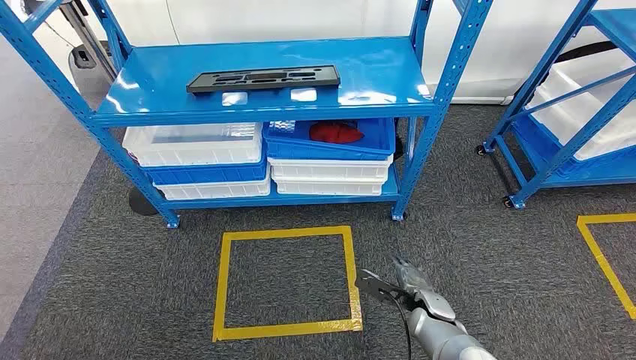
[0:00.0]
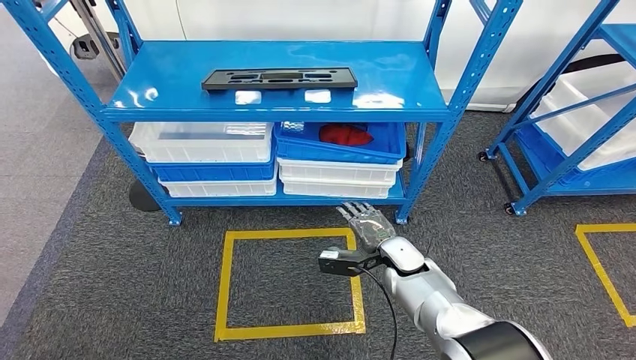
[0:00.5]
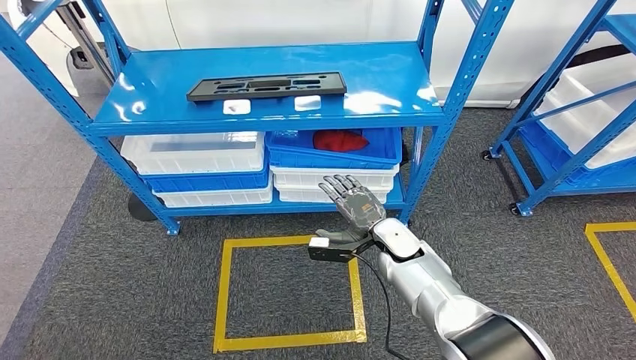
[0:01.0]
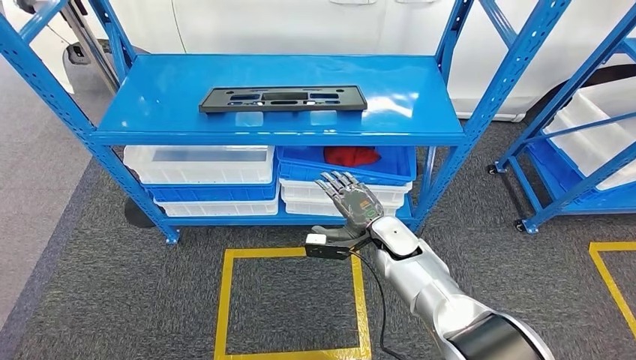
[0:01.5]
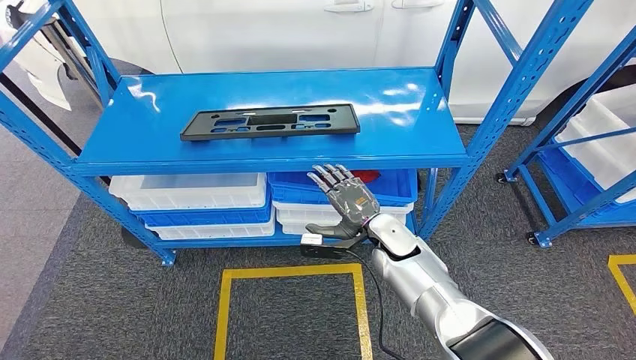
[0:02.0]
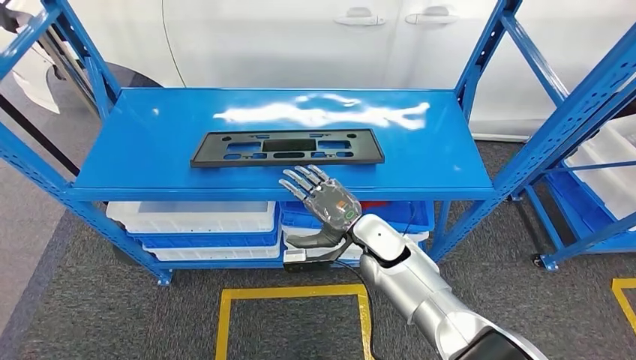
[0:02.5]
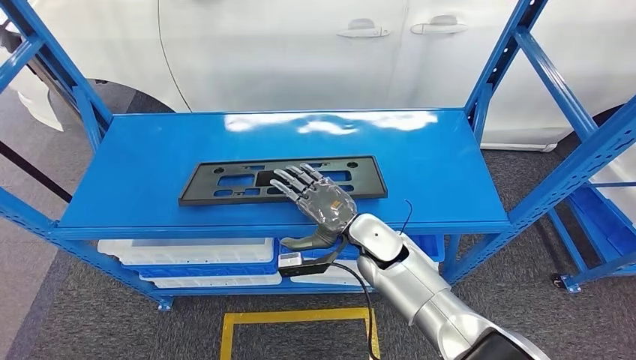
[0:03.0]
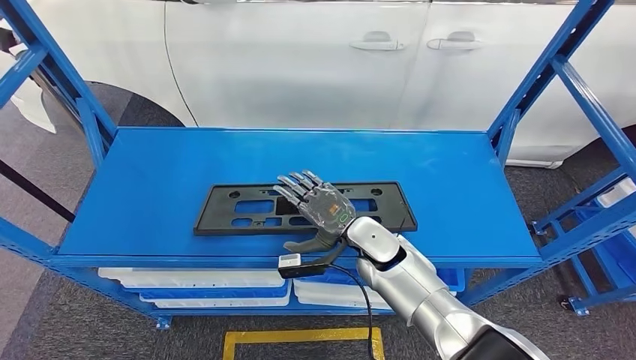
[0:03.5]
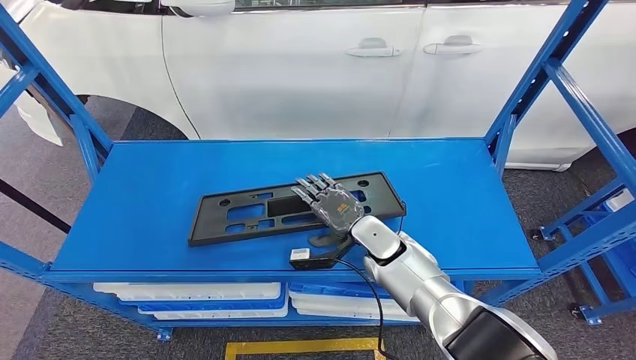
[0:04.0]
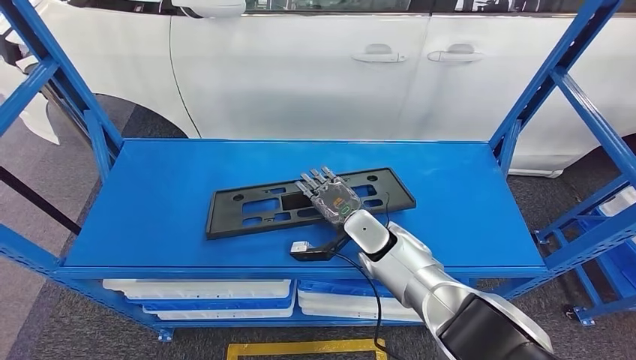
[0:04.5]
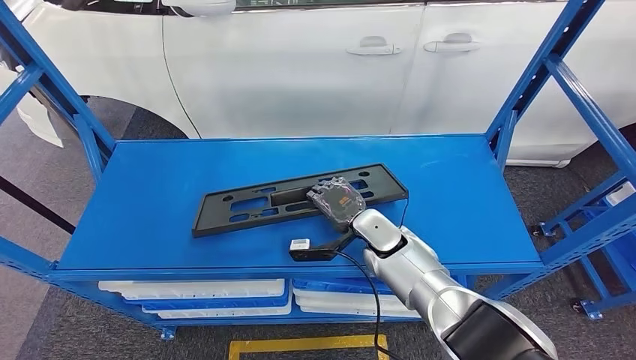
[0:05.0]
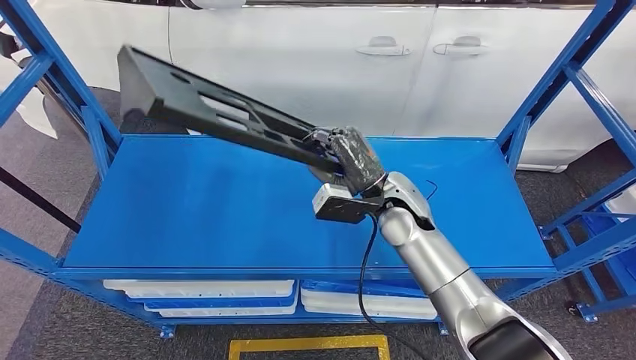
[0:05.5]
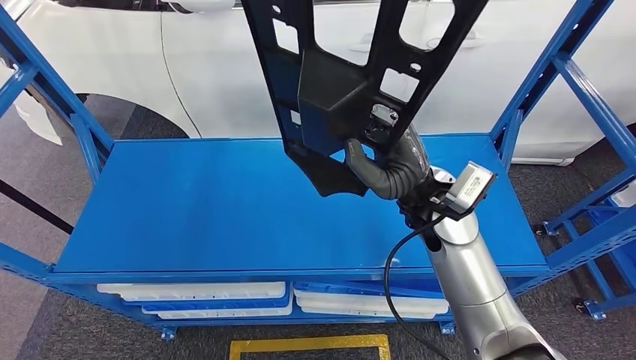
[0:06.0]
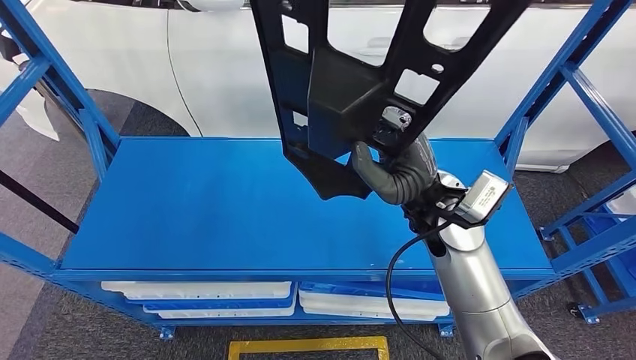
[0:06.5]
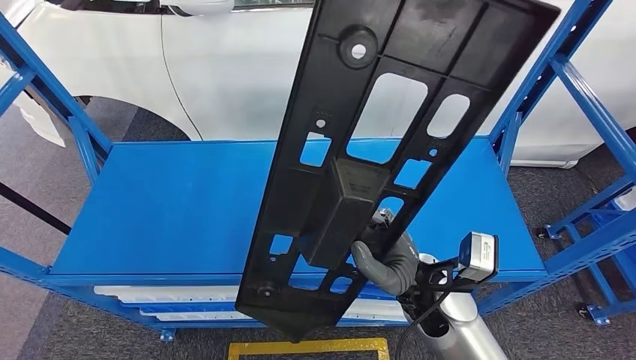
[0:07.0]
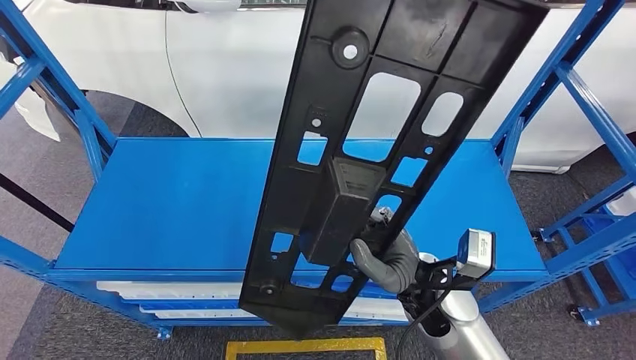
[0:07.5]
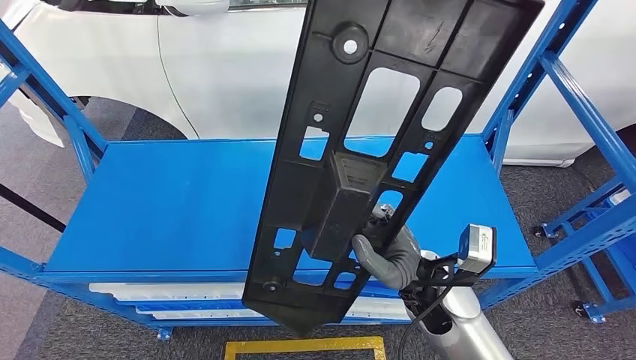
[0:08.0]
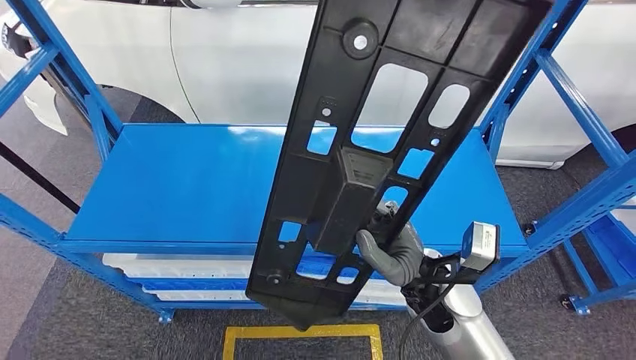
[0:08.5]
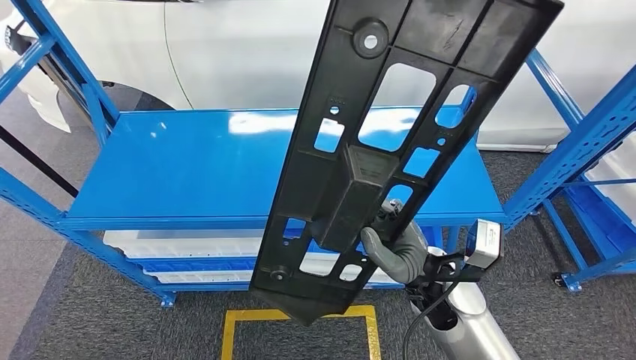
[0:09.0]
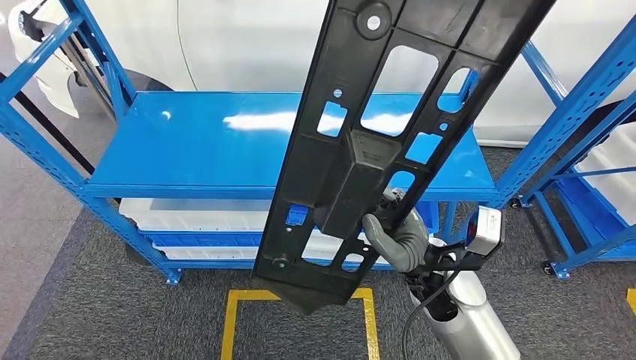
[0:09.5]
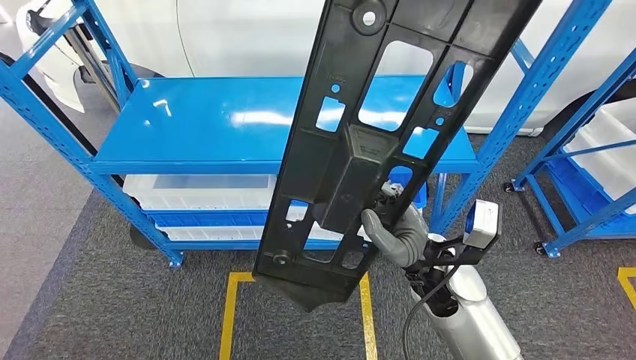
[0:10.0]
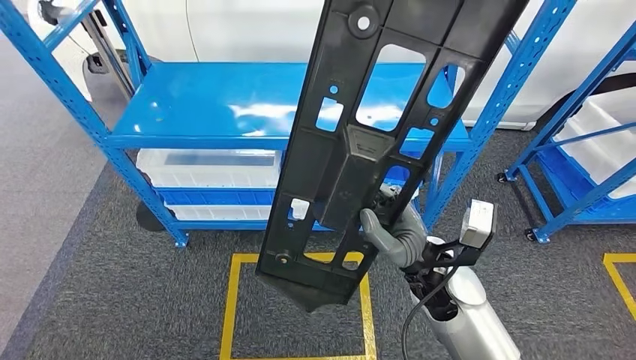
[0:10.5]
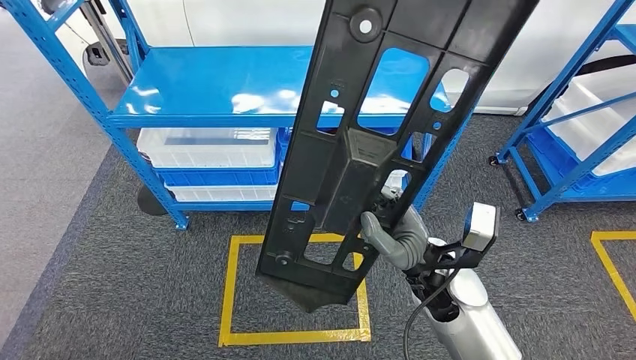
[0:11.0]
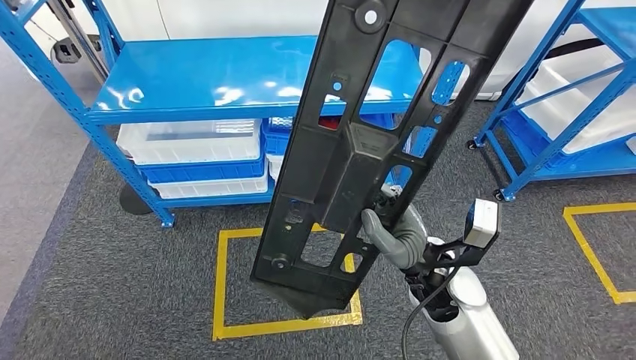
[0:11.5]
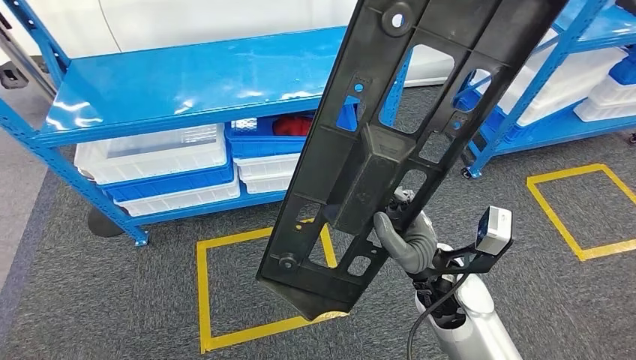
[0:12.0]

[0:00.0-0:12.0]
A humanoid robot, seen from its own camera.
Step, 0:00.0 to 0:05.0: Pick up the large material from the shelf.

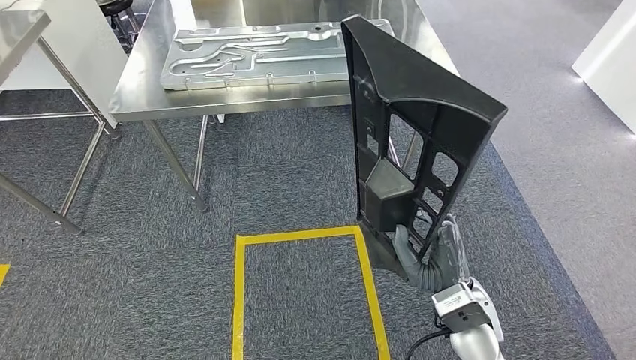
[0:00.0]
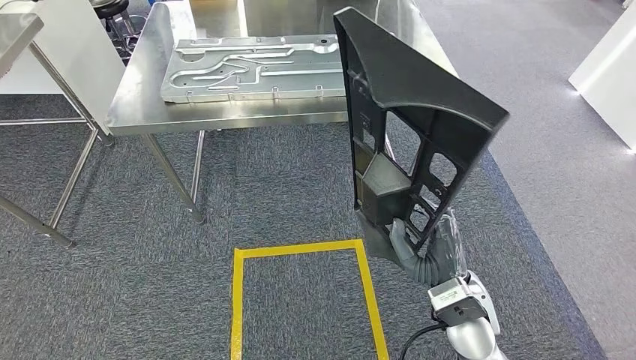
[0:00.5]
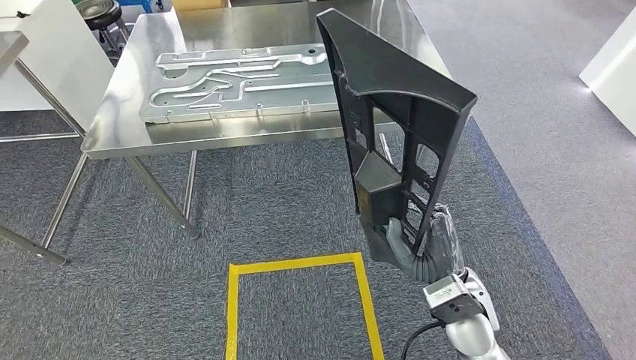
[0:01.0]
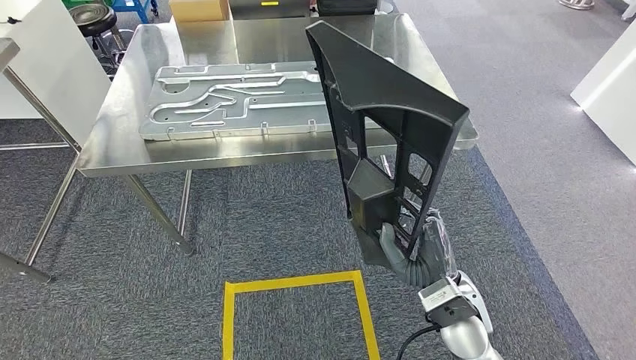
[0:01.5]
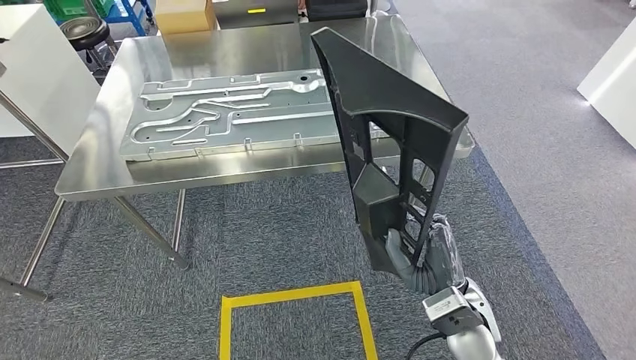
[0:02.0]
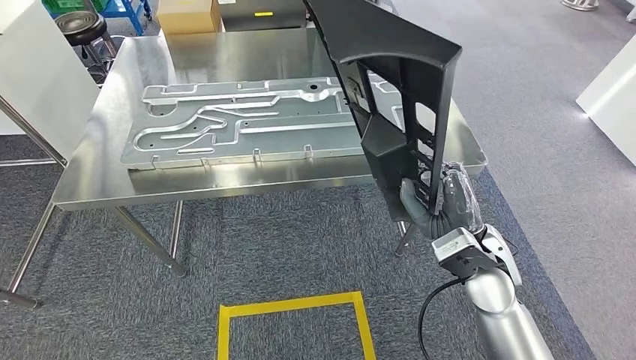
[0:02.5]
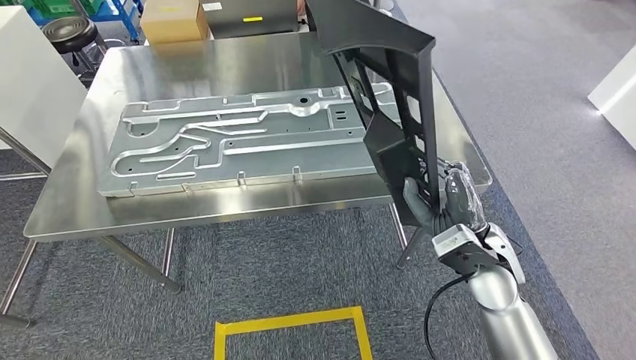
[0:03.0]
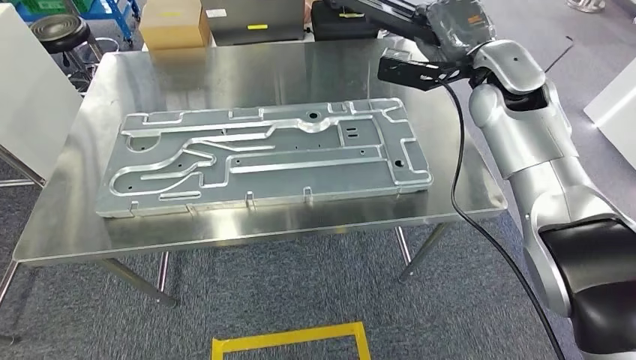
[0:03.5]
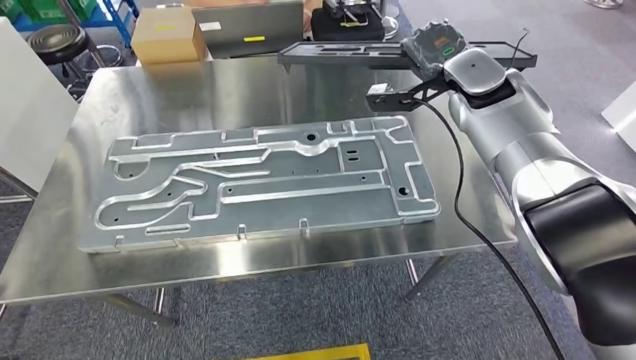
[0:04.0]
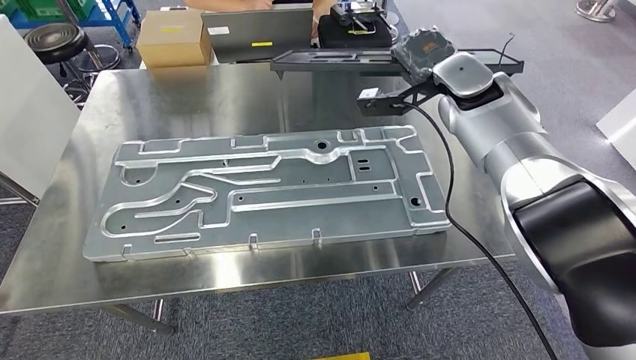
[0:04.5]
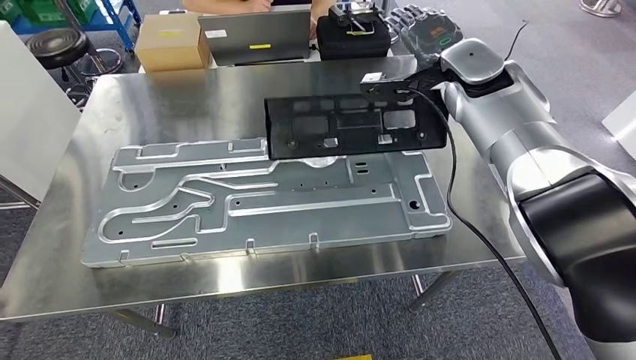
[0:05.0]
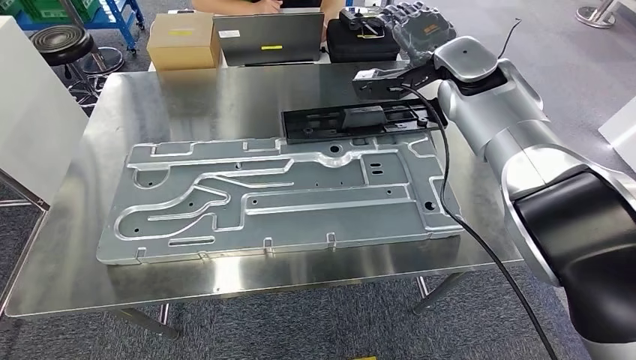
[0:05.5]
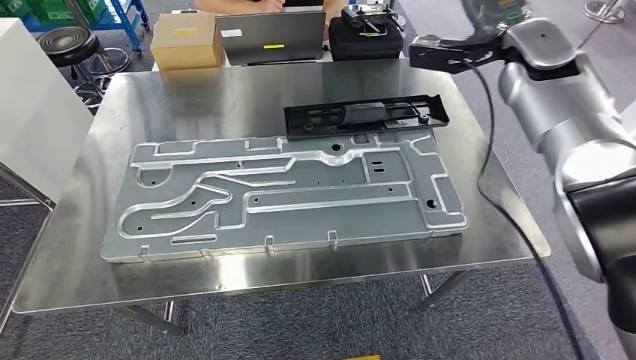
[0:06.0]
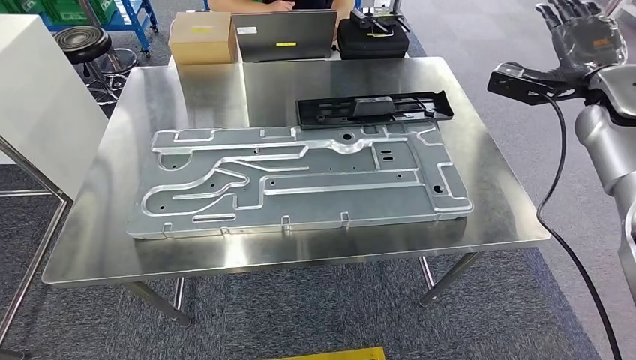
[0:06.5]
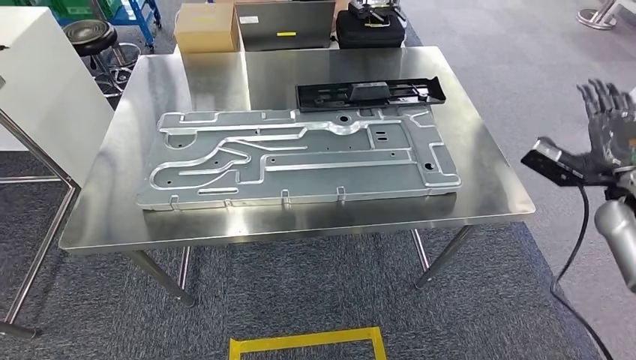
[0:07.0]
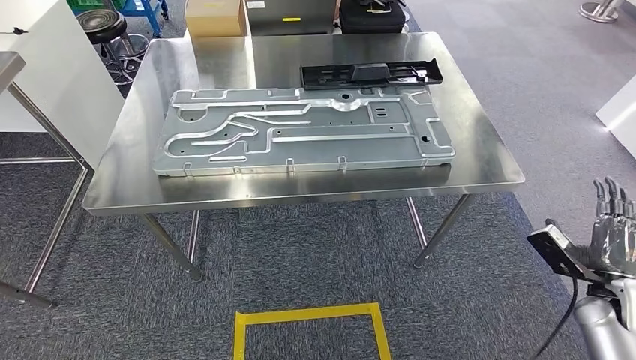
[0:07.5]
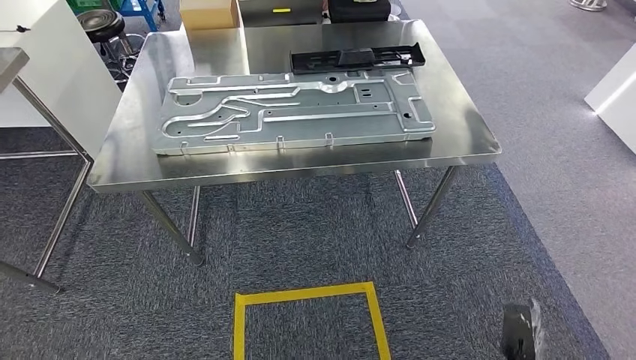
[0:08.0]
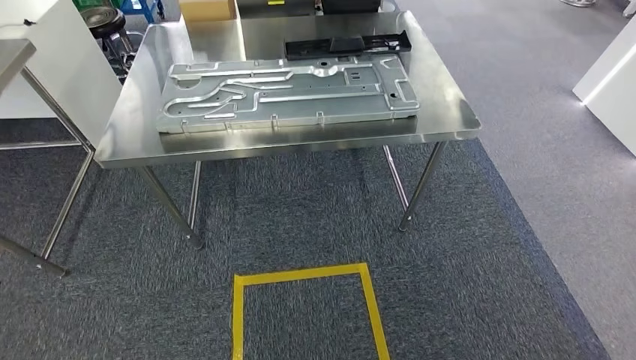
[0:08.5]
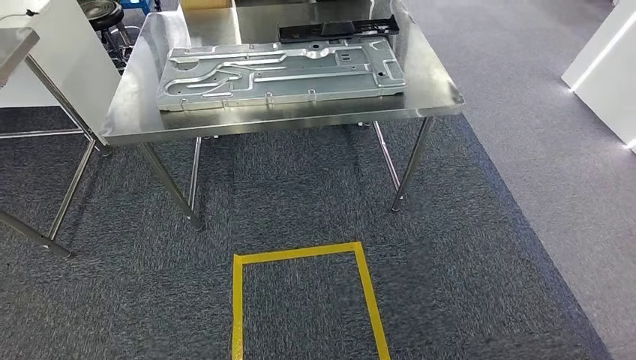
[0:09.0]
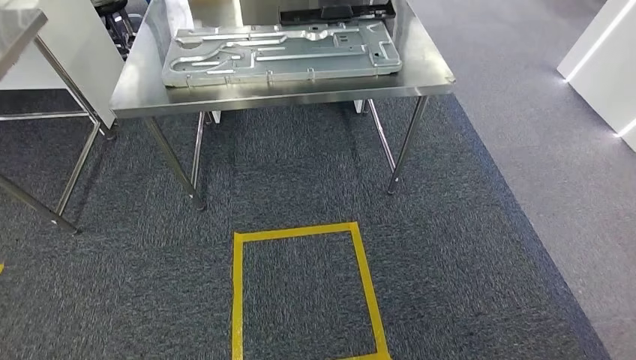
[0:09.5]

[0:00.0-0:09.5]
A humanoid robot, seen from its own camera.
Step, 0:00.0 to 0:02.0: Move the large material to the workbench.
Step, 0:04.5 to 0:06.5: Insert the large material into the corresponding slot on the workbench.
Step, 0:09.0 to 0:09.5: Return to the initial position at the shelf.
